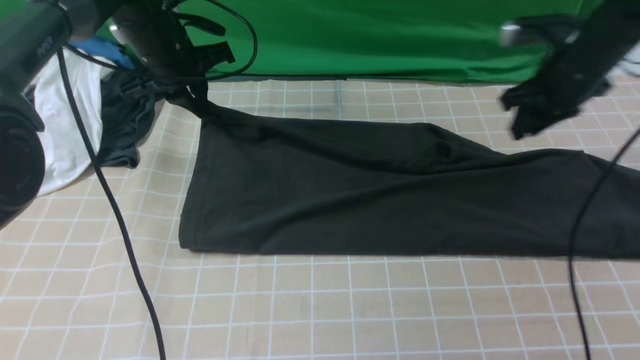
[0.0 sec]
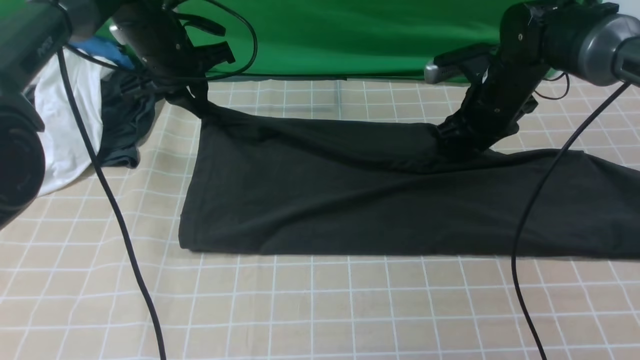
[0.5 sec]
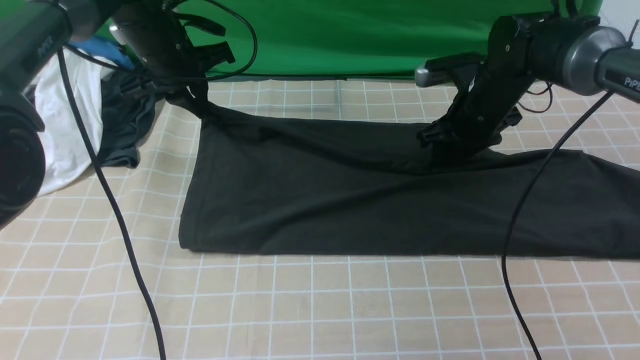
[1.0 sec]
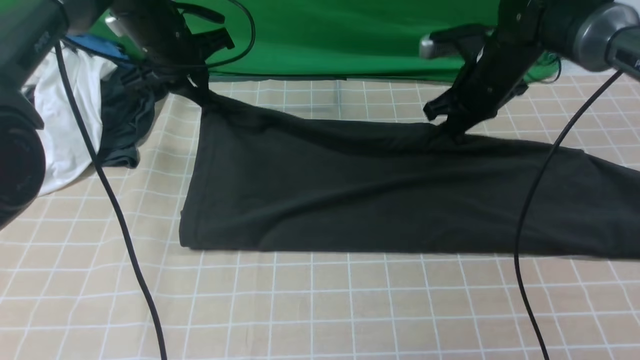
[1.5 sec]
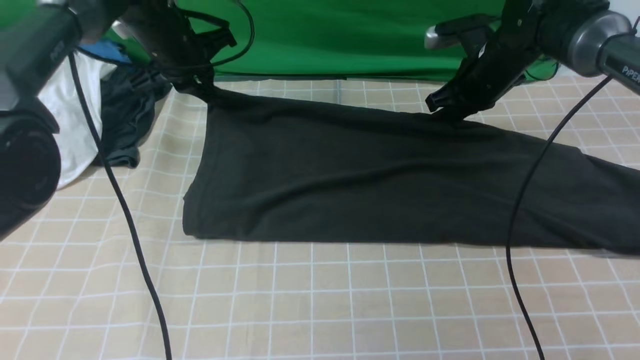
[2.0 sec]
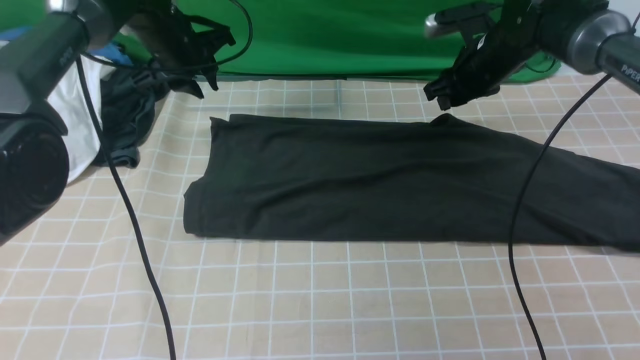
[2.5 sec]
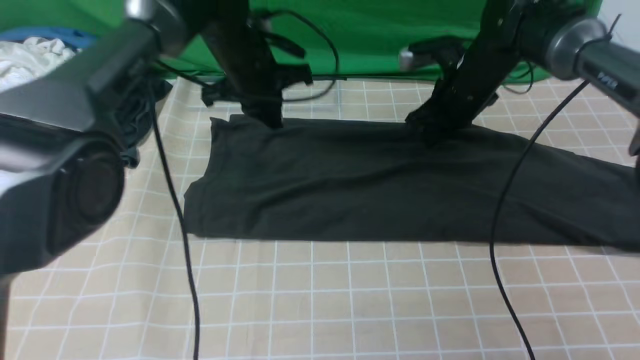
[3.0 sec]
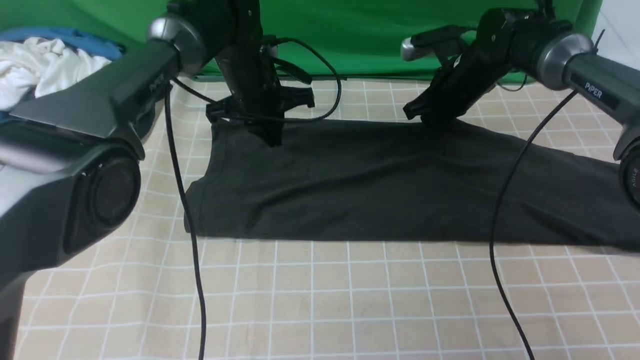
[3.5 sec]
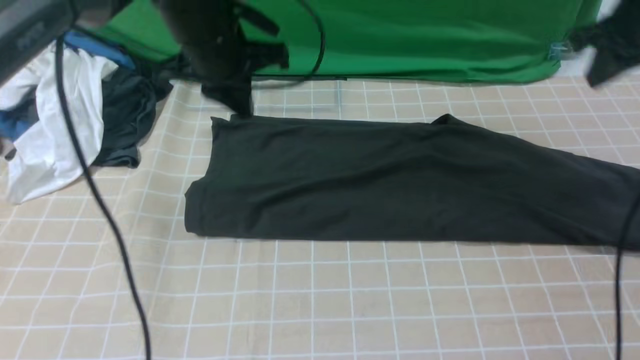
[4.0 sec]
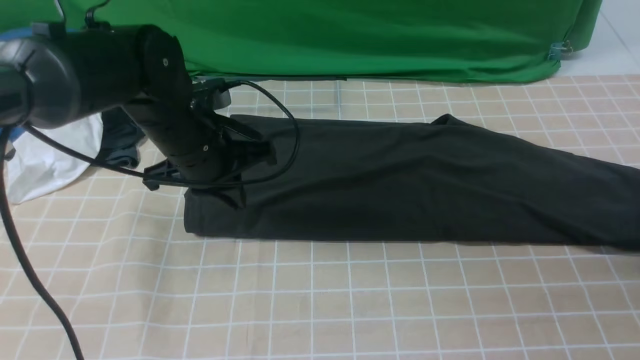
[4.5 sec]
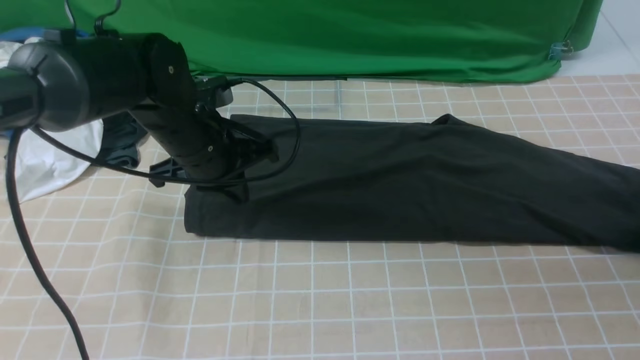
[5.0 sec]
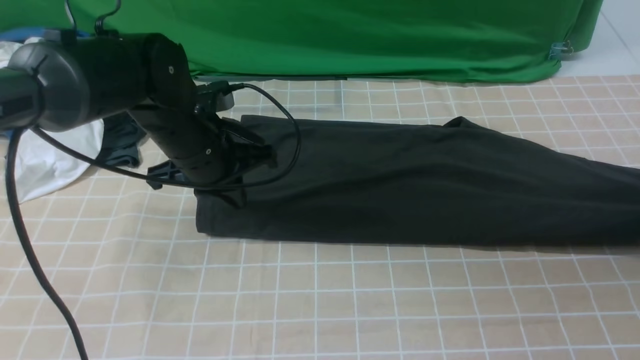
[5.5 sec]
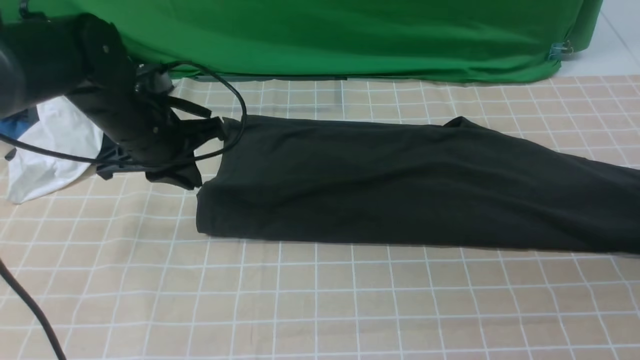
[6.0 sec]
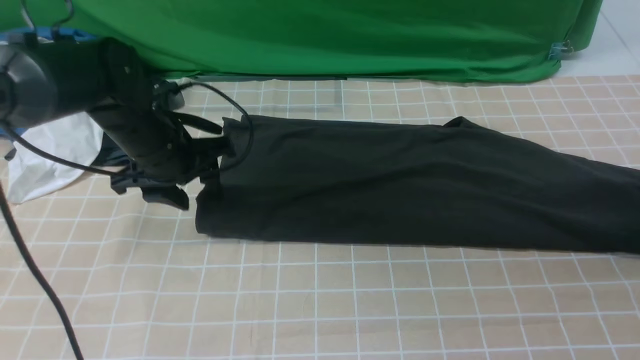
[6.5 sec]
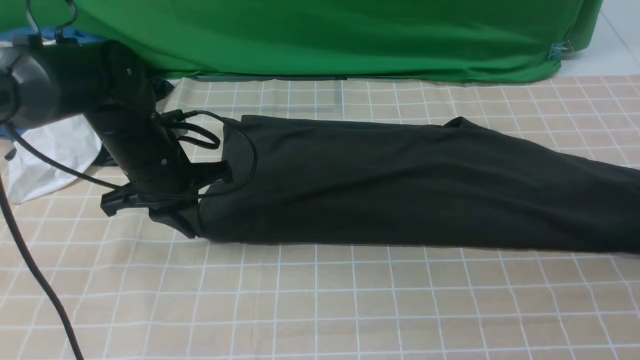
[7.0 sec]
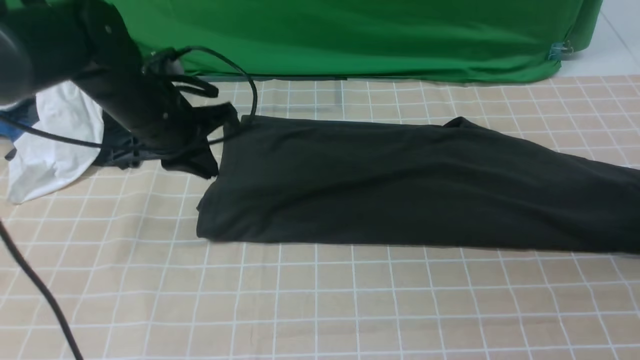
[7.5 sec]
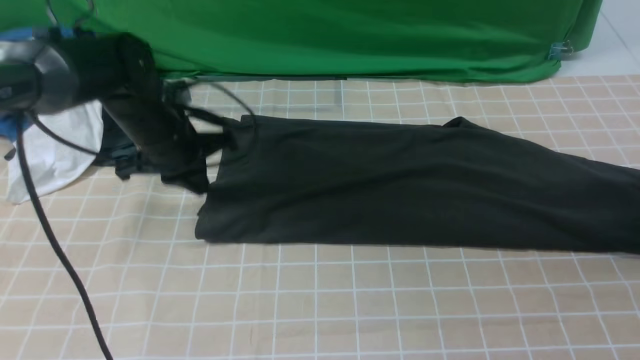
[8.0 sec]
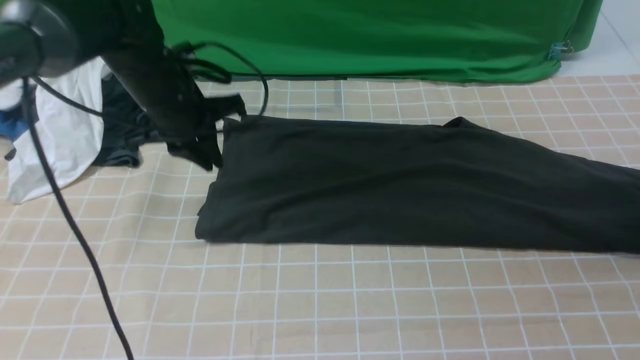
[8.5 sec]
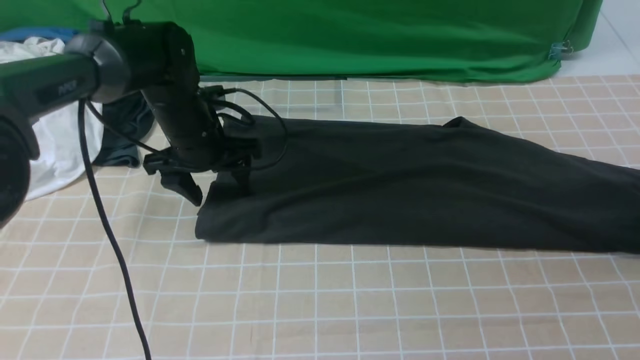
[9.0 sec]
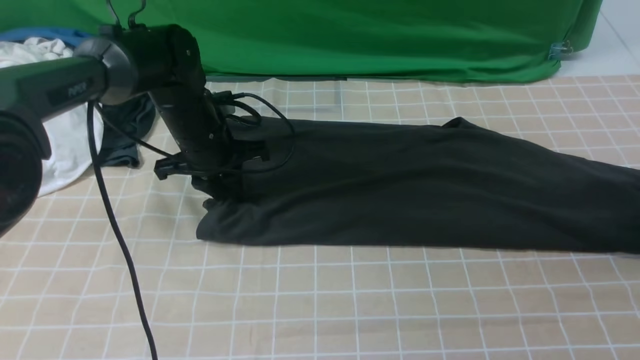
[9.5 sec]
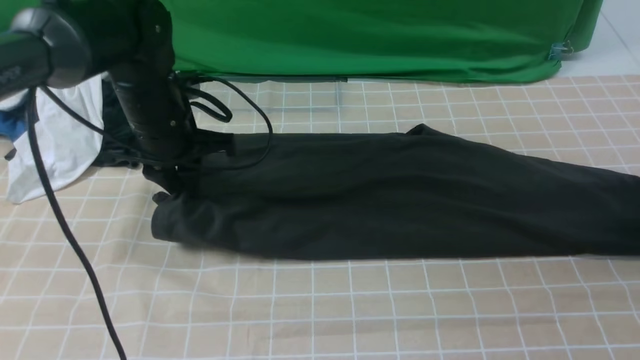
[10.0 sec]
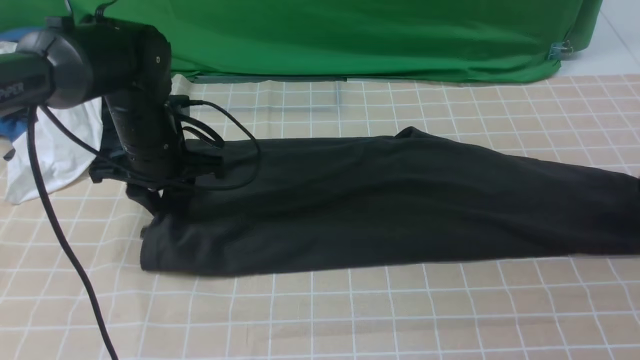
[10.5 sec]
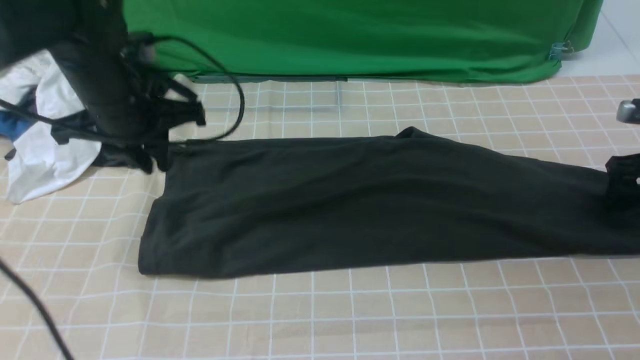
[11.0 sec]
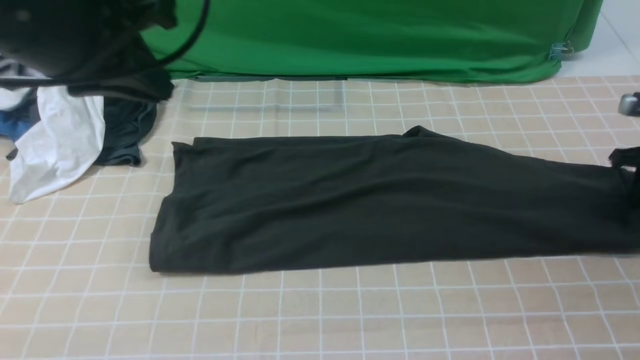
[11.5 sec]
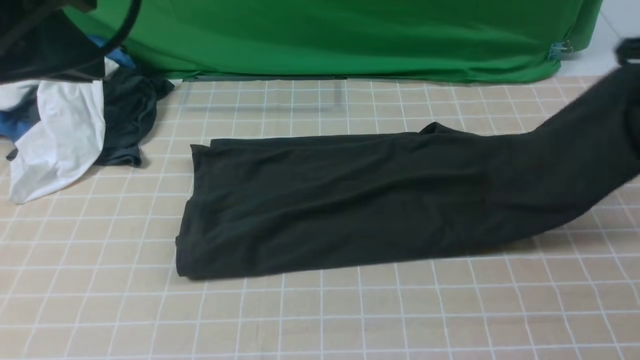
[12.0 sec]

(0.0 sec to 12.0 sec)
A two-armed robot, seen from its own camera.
Step, 0.0 sec - 2.0 sec: use both arms to drag the lower edge of the fabric forward and fold it over the upper edge.
Step, 2.5 sec - 11.0 sec: use the right arm to clamp the right edge of the fabric.
0.0 sec - 2.0 sec: The right gripper goes roughly 10 cm forward and to the left, and closes.
2.0 sec - 4.0 sec: The left gripper travels backward and to the right by some 10 cm, while the right gripper moves to the right, upward and backward, some 20 cm.
4.0 sec - 6.0 sec: The right gripper is displaced to the right, downward and backward by some 15 cm, and opens, while the left gripper heads to the left and downward, covering roughly 10 cm.
6.0 sec - 8.0 sec: The left gripper opens, then closes once more.
8.0 sec - 10.0 sec: The left gripper opens, then closes again.
10.0 sec - 12.0 sec: The left gripper goes about 30 cm upward and backward, and opens, then closes once more; the right gripper goes roughly 15 cm to the left and upward, and closes its fingers.

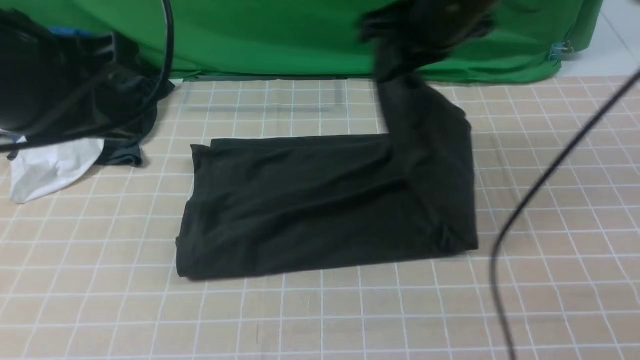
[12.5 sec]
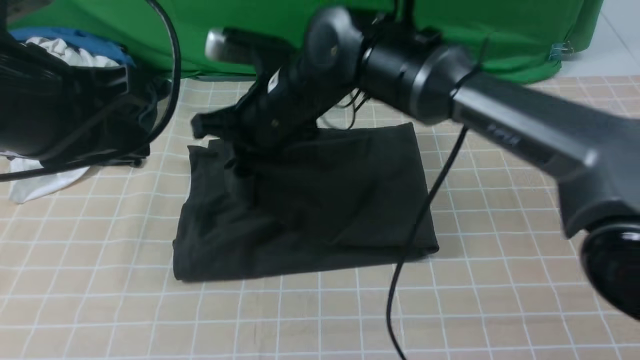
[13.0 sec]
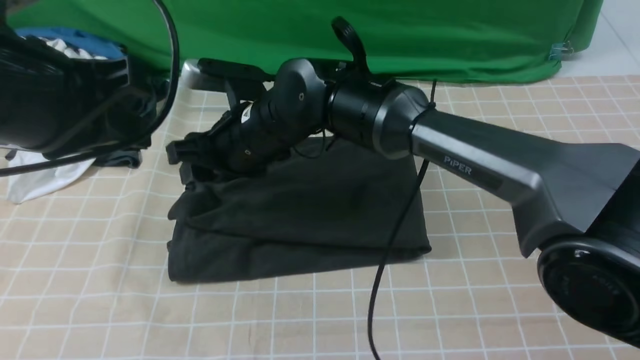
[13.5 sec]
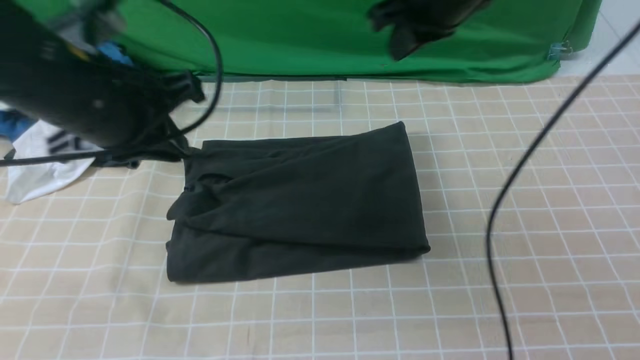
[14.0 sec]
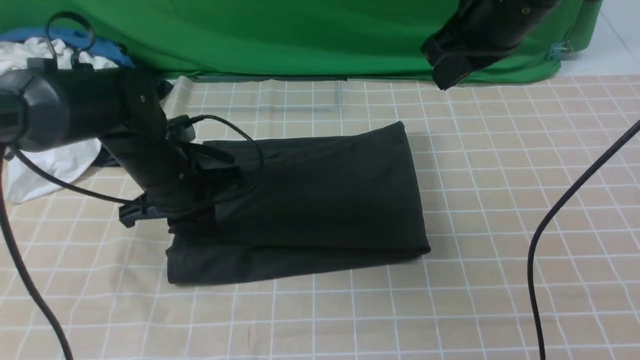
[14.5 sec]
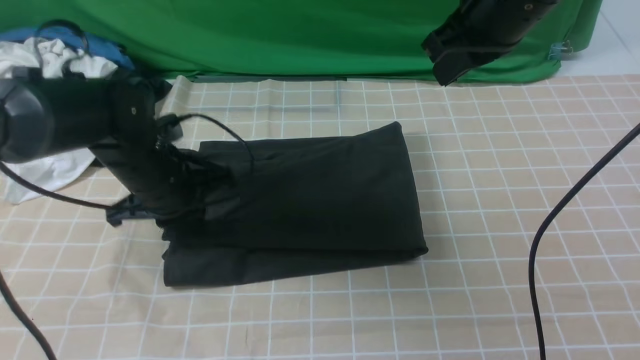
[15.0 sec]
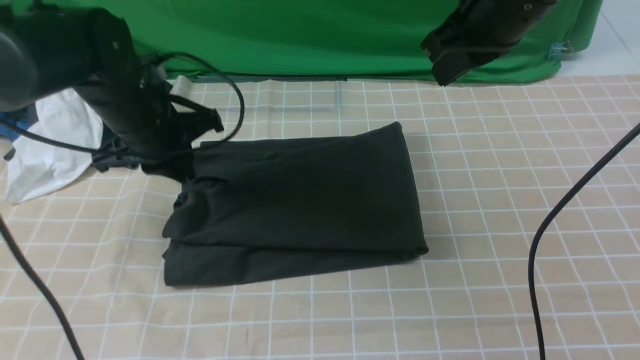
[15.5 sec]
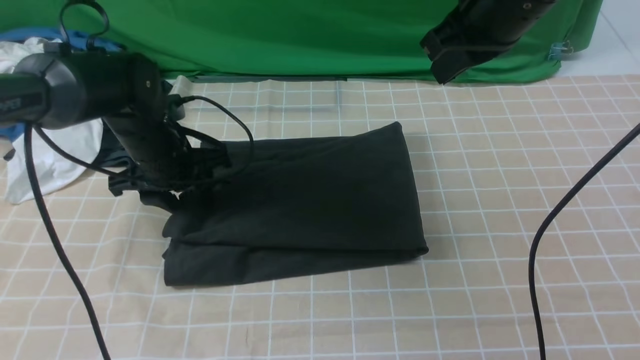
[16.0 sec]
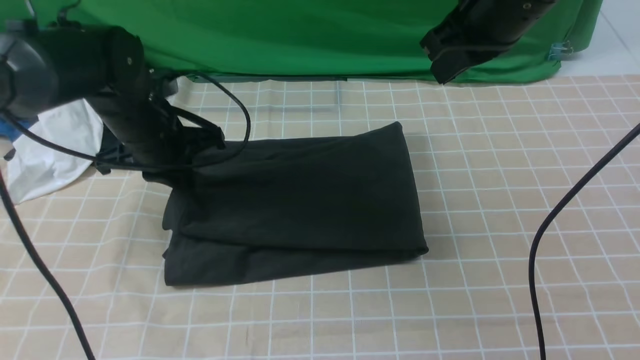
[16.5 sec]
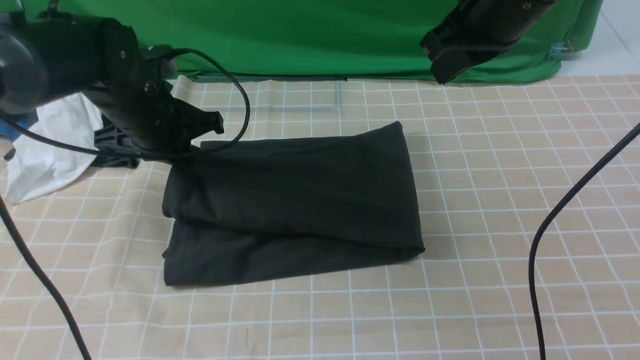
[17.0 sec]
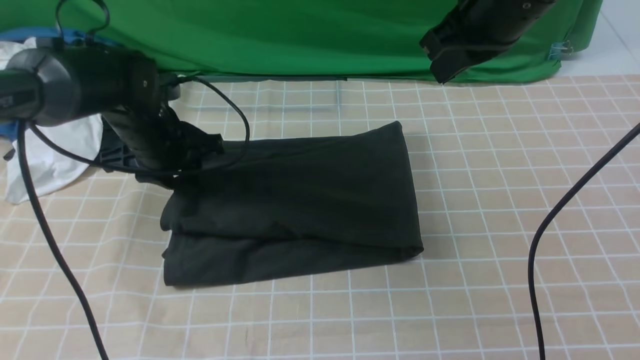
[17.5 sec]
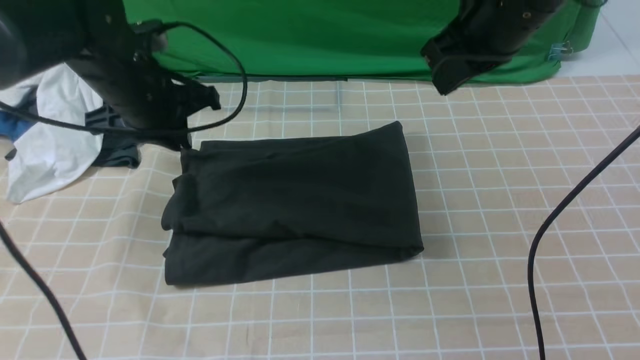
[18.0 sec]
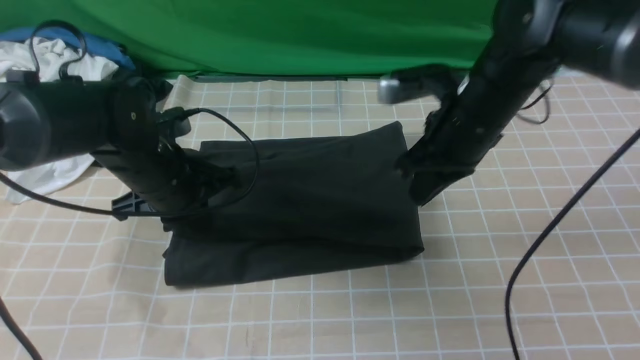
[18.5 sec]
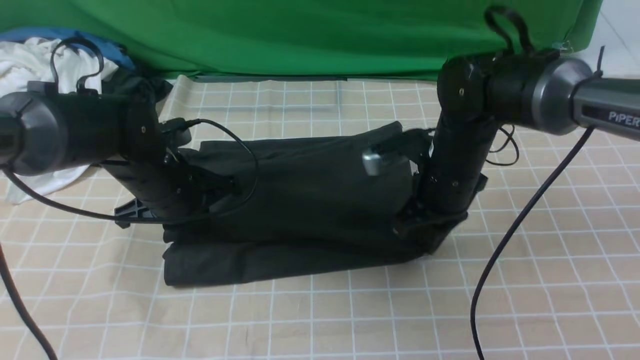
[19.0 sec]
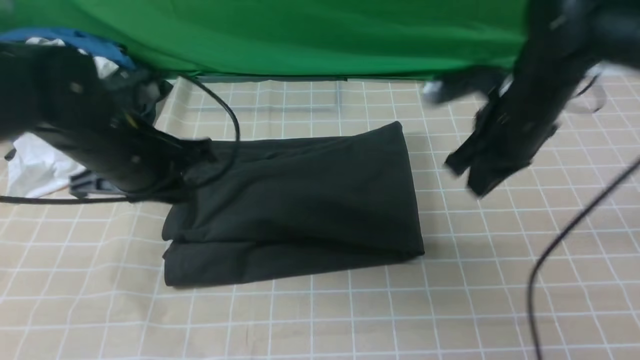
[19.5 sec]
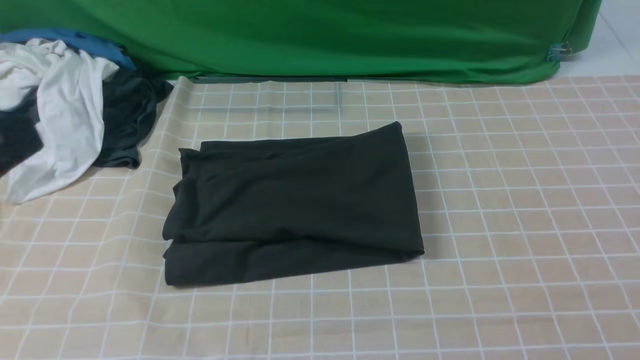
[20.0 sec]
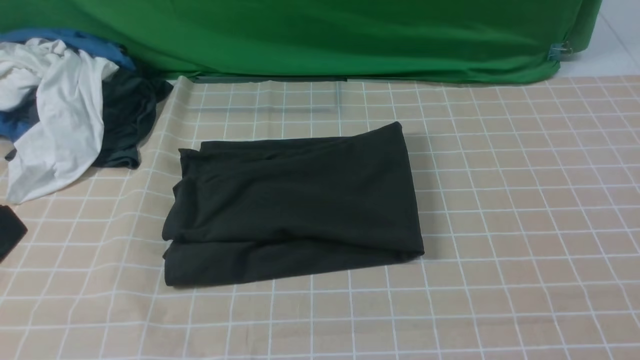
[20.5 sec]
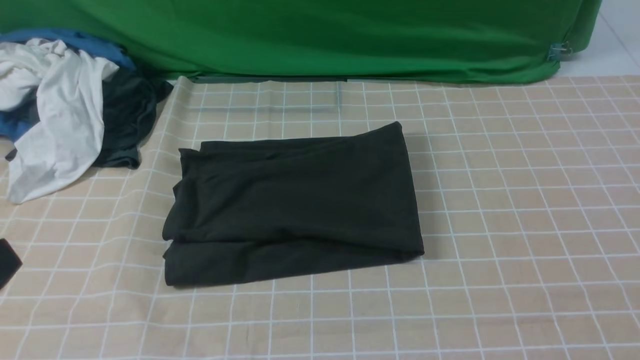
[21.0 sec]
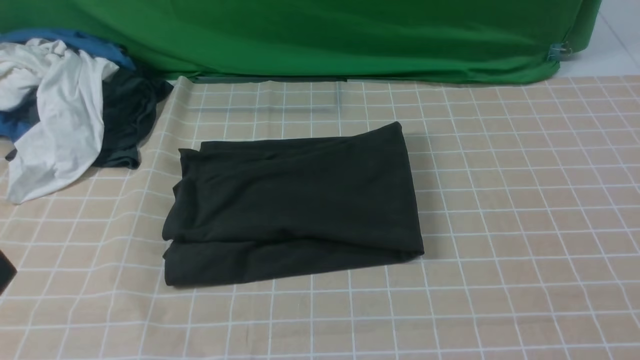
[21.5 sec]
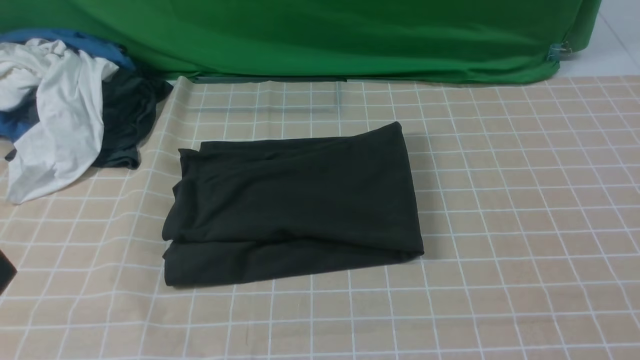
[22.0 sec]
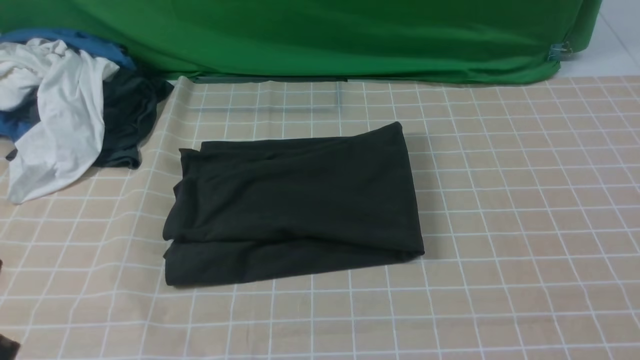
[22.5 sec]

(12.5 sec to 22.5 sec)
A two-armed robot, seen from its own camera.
12.5 sec - 14.5 sec: The left gripper is displaced downward and forward by about 25 cm; the right gripper goes to the left and returns, approximately 15 cm each way, and opens, then closes once more.
14.5 sec - 16.5 sec: The left gripper shifts by approximately 5 cm, and opens and closes again.
16.5 sec - 18.5 sec: The right gripper is displaced downward by about 10 cm, while the left gripper ends up some 5 cm from where it was, and opens, then closes again.
18.5 sec - 20.5 sec: The right gripper moves backward, to the right and upward, about 40 cm; the left gripper moves backward and upward, some 30 cm.
20.5 sec - 22.5 sec: The left gripper moves downward, some 10 cm.
